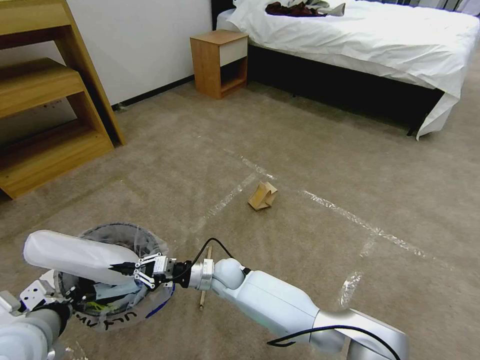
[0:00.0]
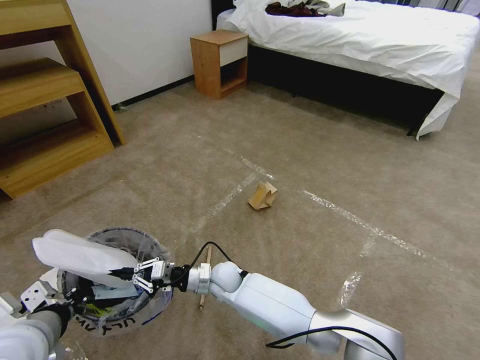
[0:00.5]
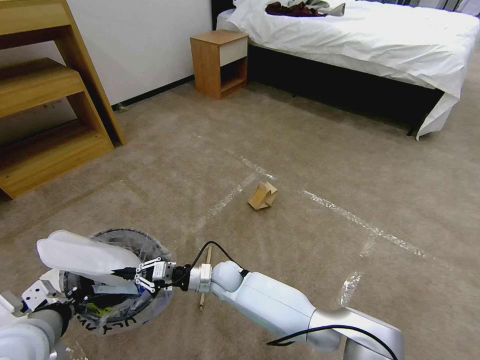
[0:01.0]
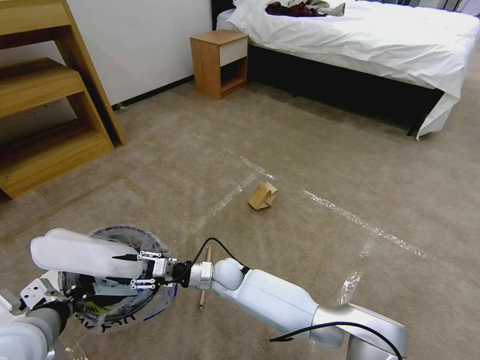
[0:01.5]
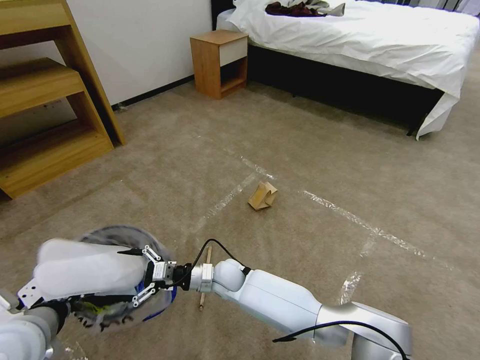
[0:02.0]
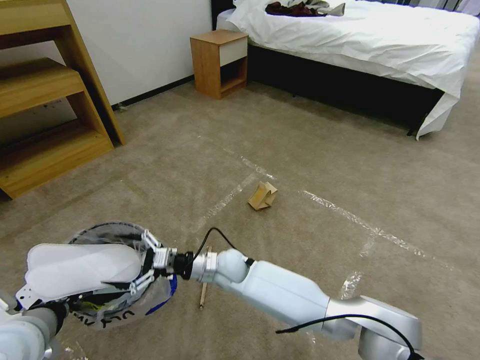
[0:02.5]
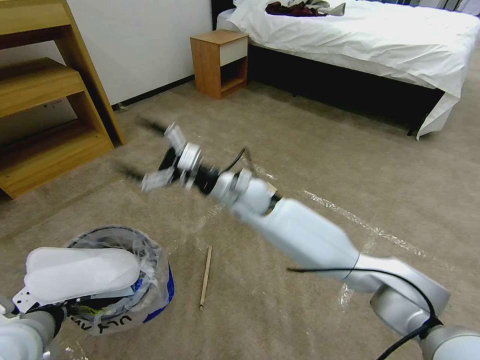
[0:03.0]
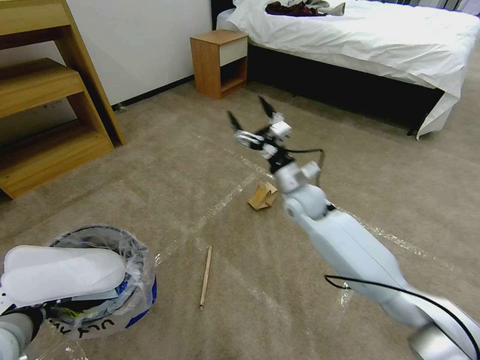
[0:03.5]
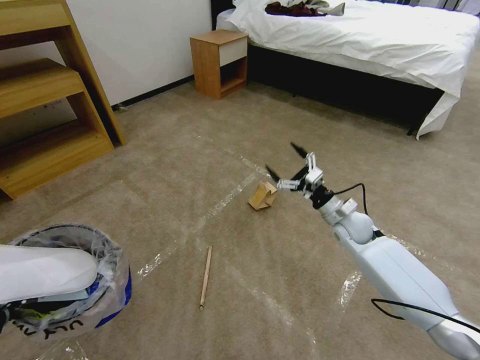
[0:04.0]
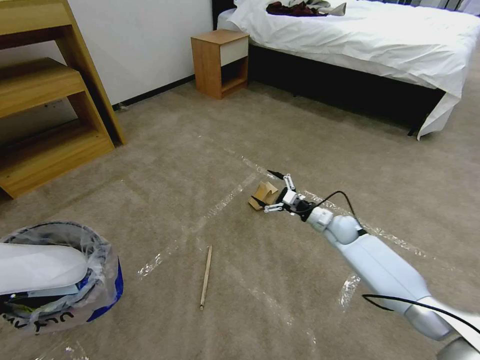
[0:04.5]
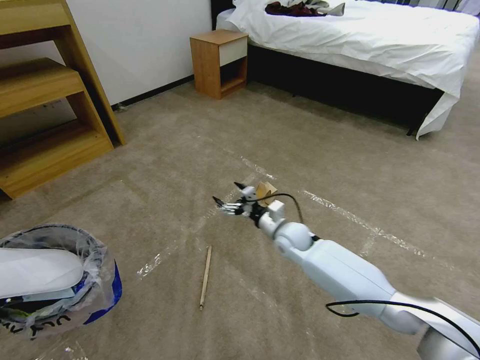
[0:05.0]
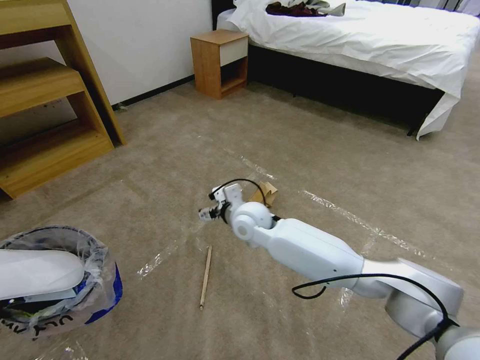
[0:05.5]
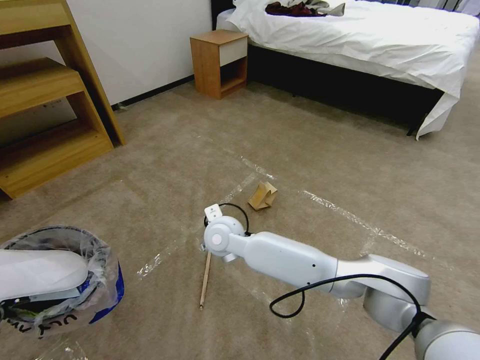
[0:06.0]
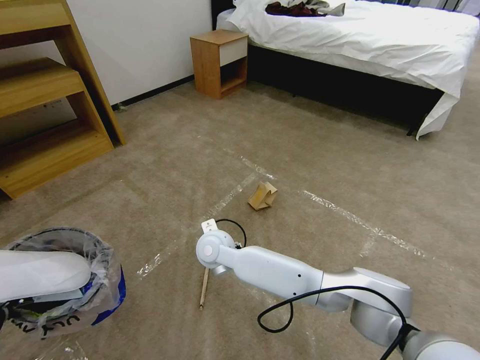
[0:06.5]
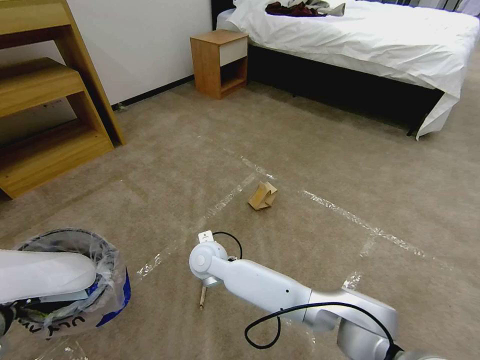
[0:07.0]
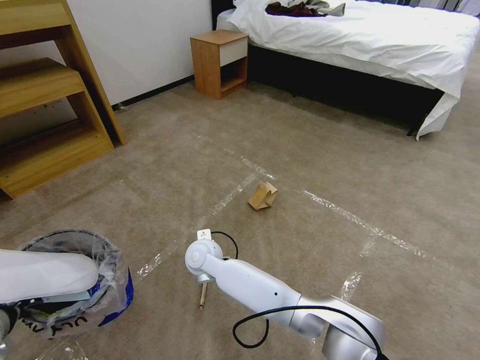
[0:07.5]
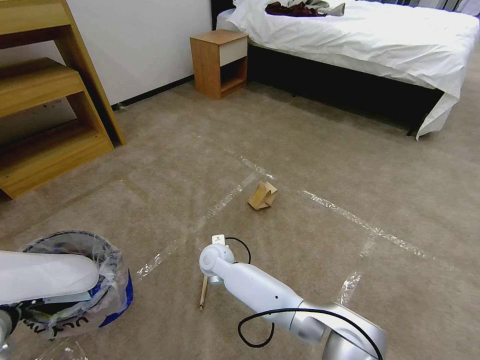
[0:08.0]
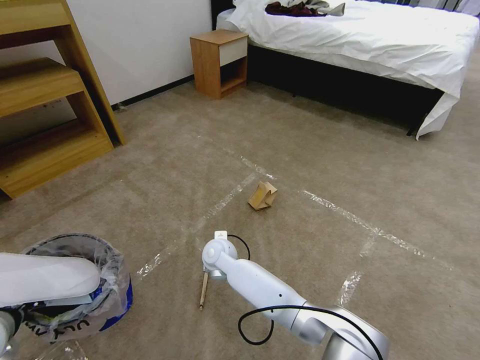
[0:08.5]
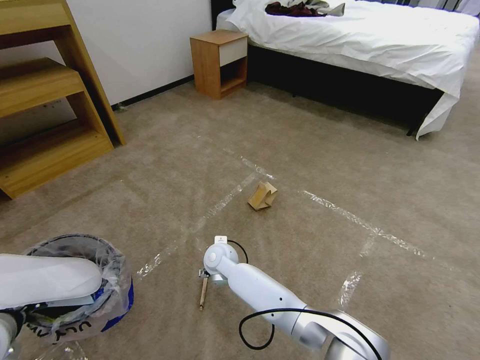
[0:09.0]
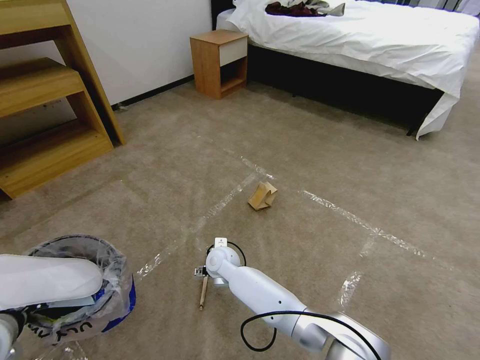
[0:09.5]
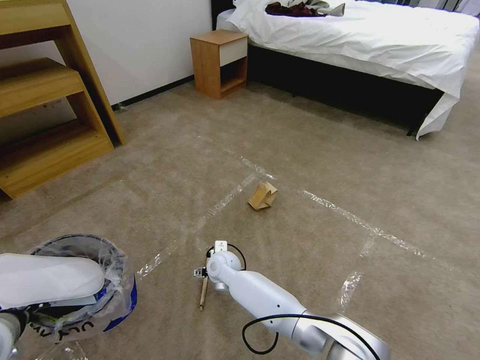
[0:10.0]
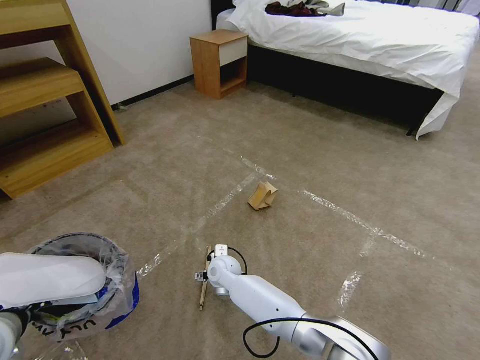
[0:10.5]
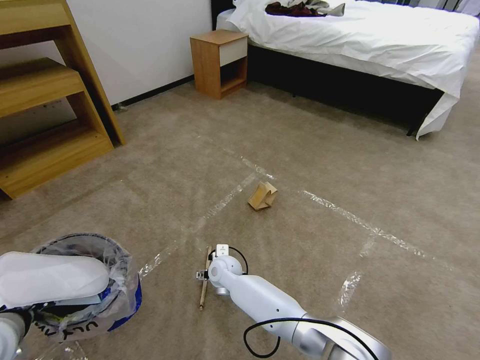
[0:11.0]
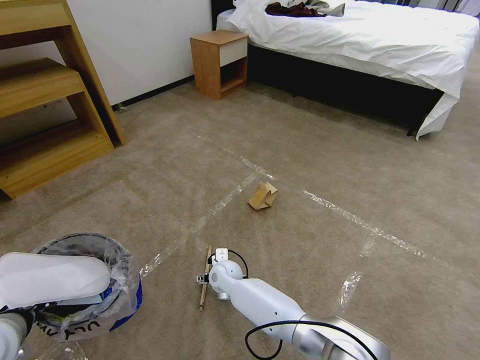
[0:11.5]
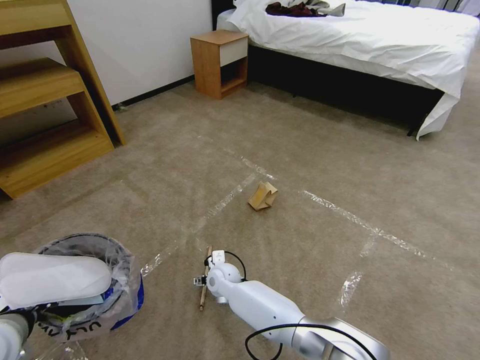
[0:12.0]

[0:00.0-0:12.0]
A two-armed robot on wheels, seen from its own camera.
Task of the whole recording: Pick up the trash bin and place the garbage on the floor into it.
0:00.0 to 0:02.0: The right gripper opens its fingers.
0:02.0 to 0:04.0: The right gripper travels to the right by approximately 35 cm; the left gripper travels to the left by approximately 5 cm.
0:04.0 to 0:06.0: The right gripper travels to the left by some 35 cm.
0:06.0 to 0:08.0: The right gripper is displaced downward by some 15 cm.
0:08.0 to 0:10.0: The grippers make only small movements.
0:10.0 to 0:12.0: The grippers move only a little.

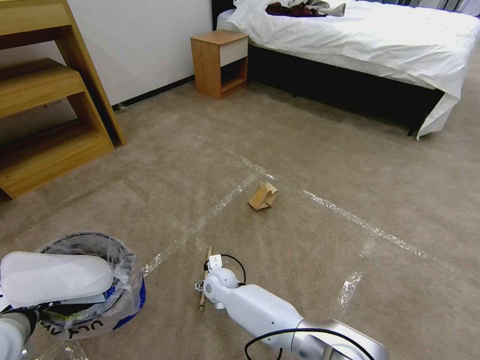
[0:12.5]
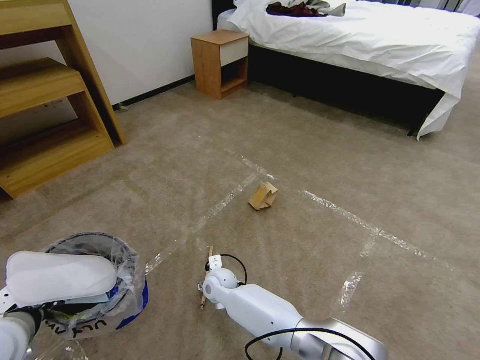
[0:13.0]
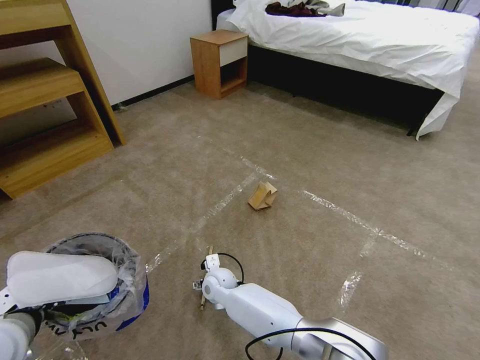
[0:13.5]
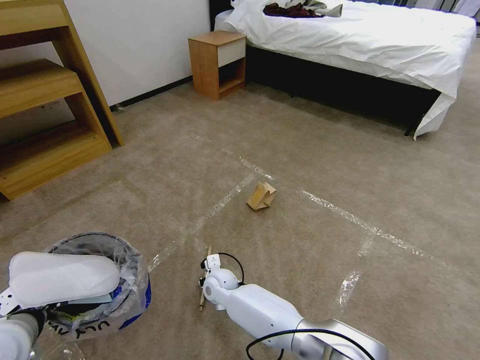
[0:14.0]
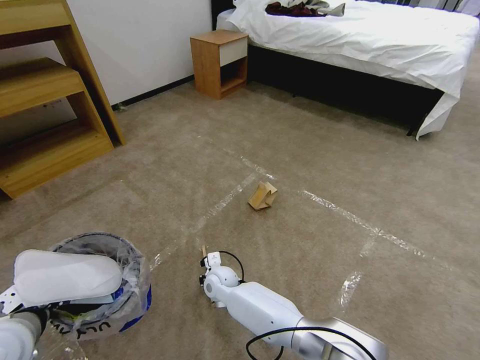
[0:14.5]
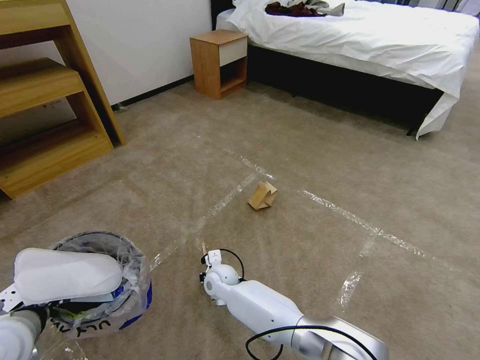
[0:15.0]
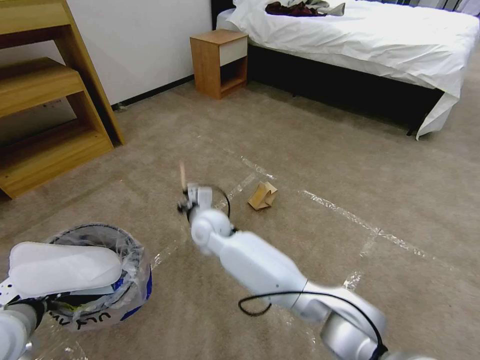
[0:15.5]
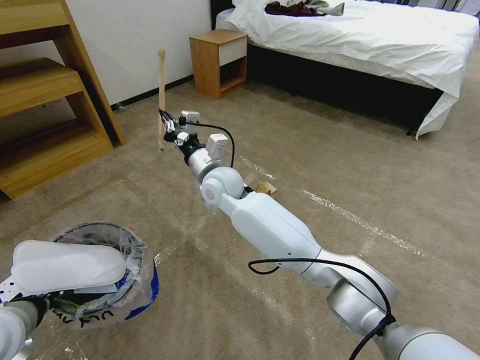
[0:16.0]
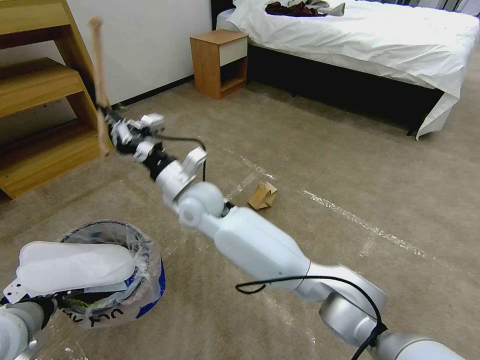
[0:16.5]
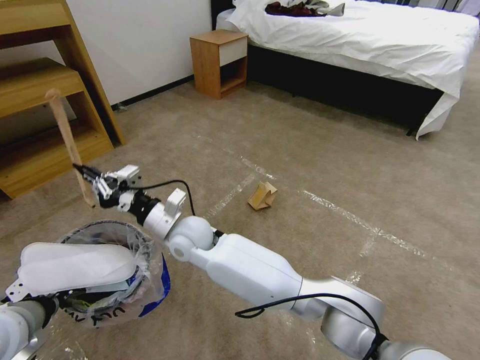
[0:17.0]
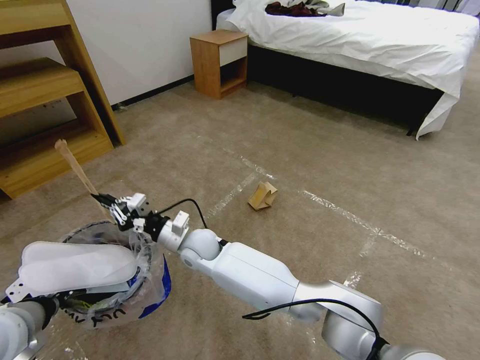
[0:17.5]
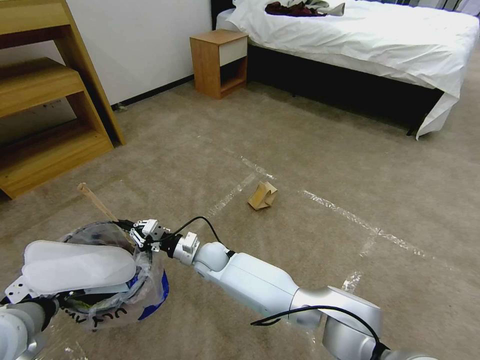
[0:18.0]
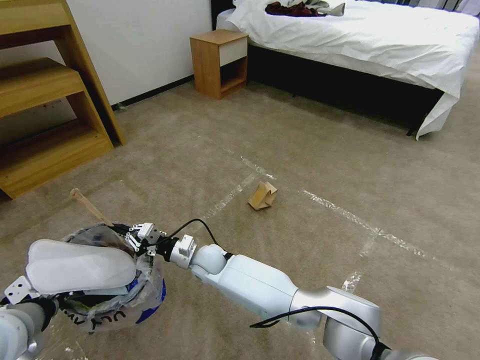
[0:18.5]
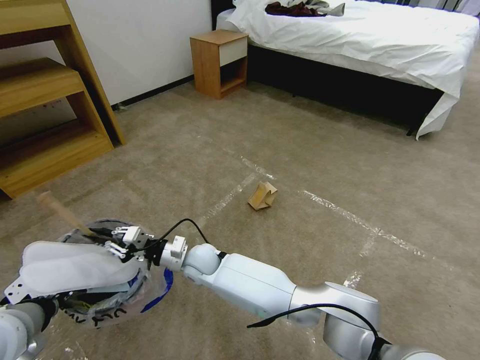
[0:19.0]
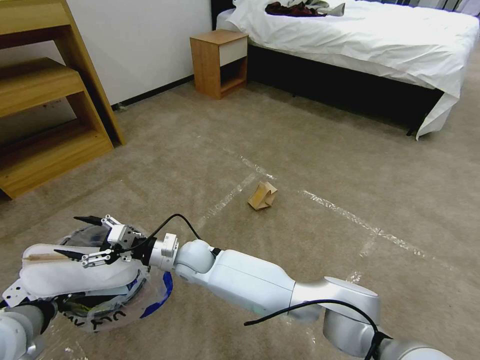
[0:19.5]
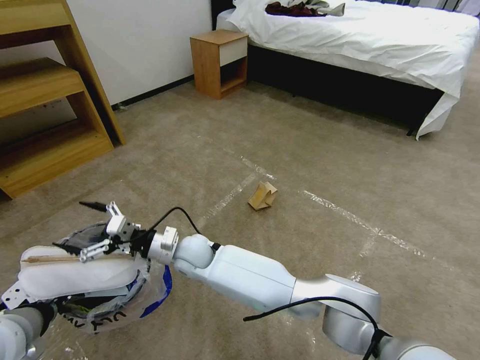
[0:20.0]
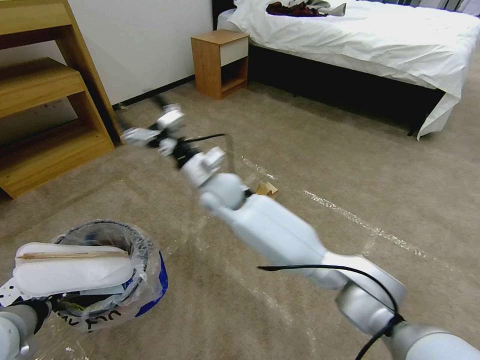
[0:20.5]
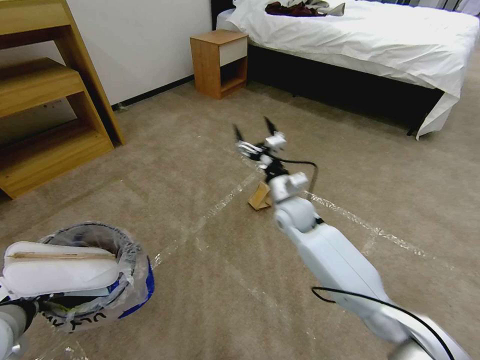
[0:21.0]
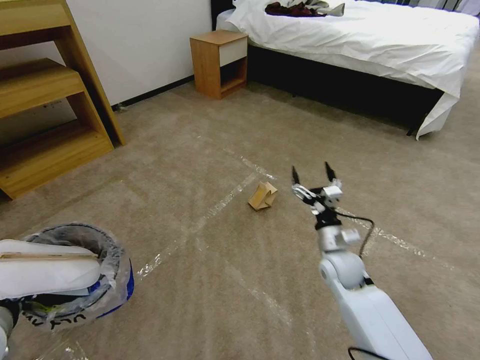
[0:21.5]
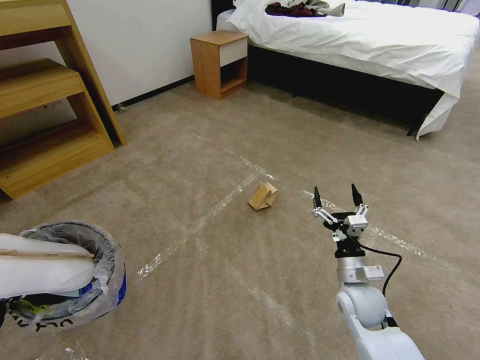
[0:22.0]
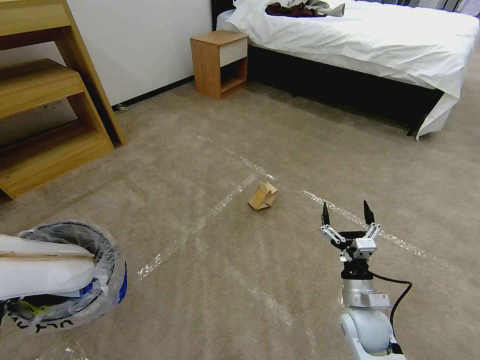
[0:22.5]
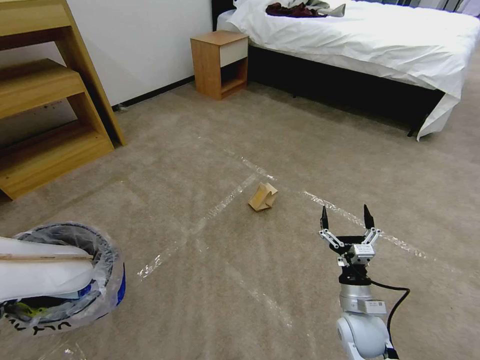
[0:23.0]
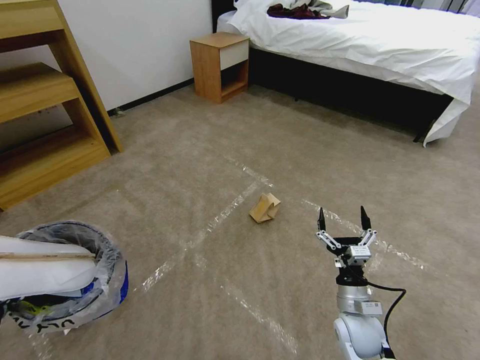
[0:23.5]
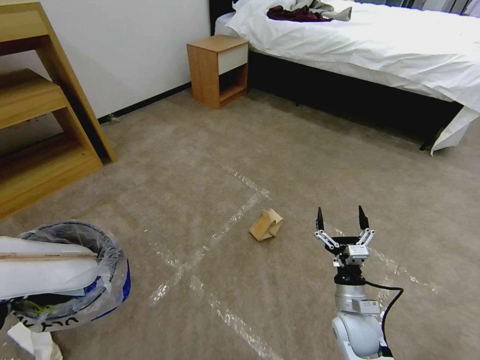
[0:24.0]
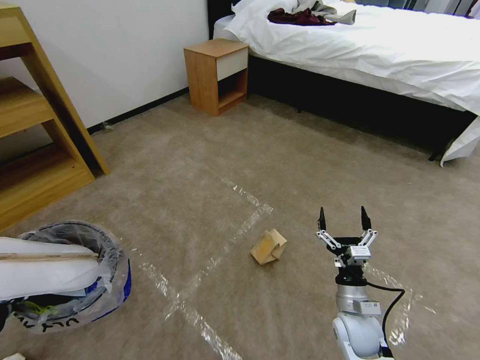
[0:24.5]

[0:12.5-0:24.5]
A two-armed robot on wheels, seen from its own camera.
Task of the whole recording: Pick up the trash bin and place the garbage on the floor into it.
0:12.5 to 0:14.5: The right gripper closes its fingers.
0:14.5 to 0:16.5: The right gripper heads upward, covering roughly 30 cm.
0:16.5 to 0:18.5: The right gripper travels downward by some 20 cm.
0:18.5 to 0:20.5: The right gripper travels upward by about 20 cm, and opens up.
0:20.5 to 0:22.5: The right gripper shifts about 40 cm to the right, backward and downward. The left gripper shifts approximately 5 cm to the left.

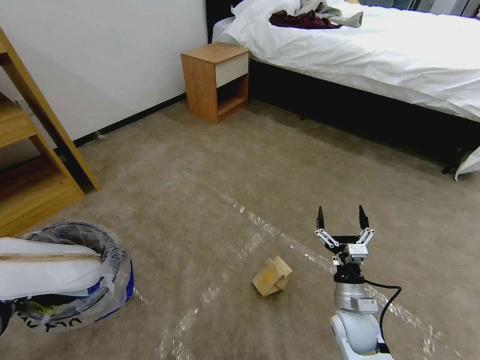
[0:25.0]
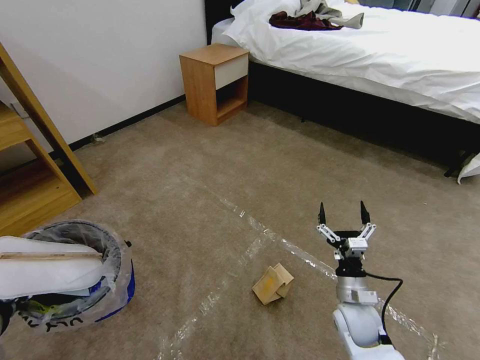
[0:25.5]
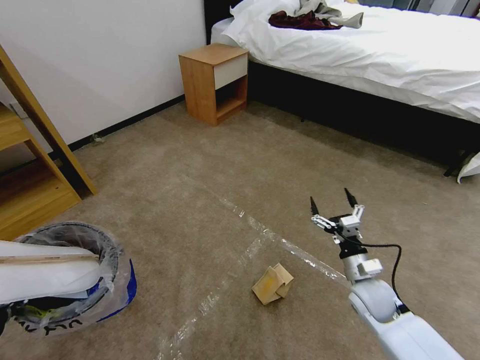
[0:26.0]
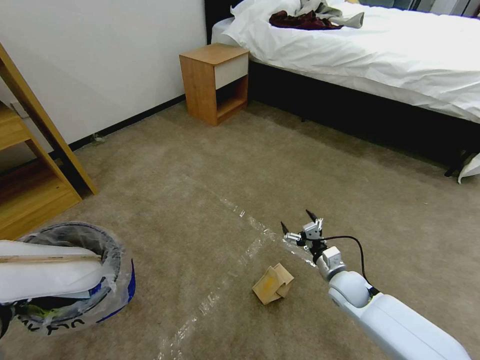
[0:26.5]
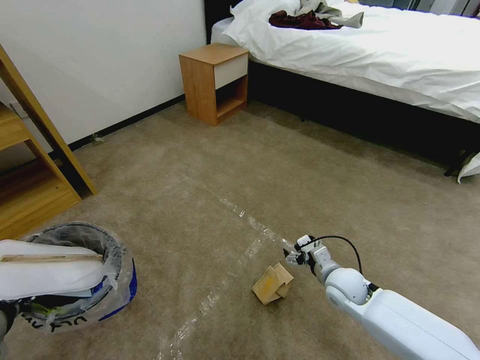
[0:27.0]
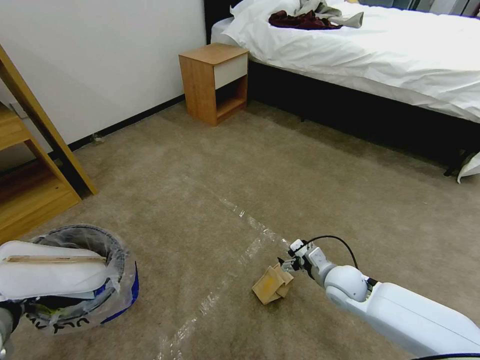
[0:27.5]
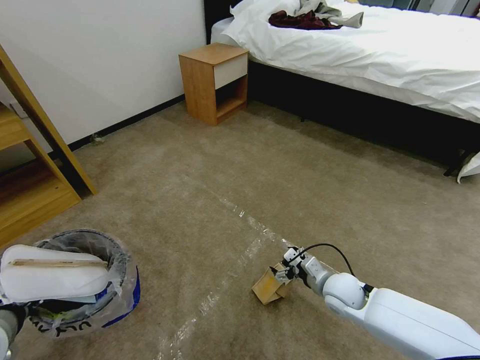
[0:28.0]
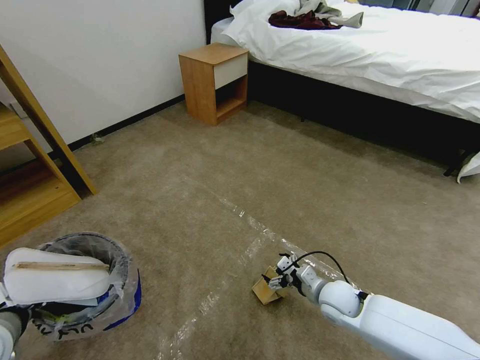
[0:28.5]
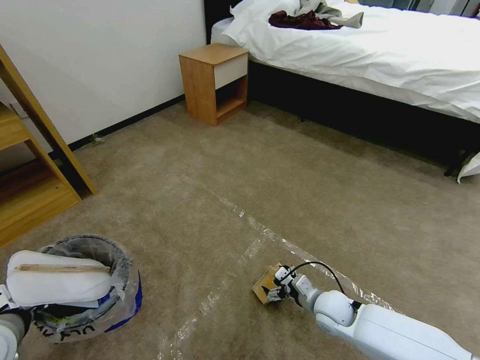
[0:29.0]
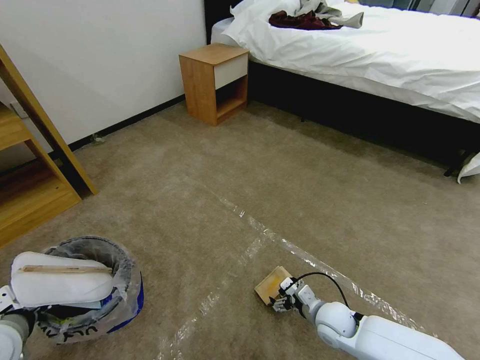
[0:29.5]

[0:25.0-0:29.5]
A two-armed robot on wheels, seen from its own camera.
Task of the whole recording: Pick up the trash bin and place the garbage on the floor into it.
0:25.0 to 0:27.0: The right gripper travels forward by approximately 10 cm.
0:27.0 to 0:29.5: The right gripper moves downward and backward, about 10 cm.